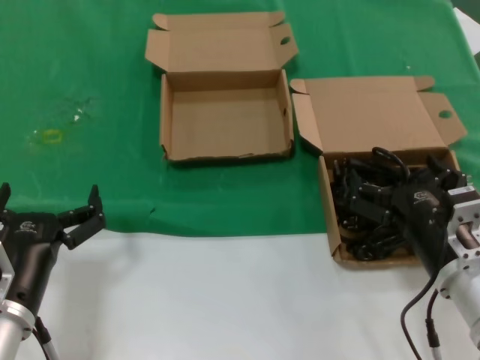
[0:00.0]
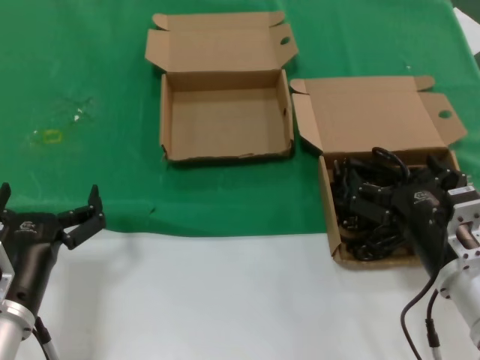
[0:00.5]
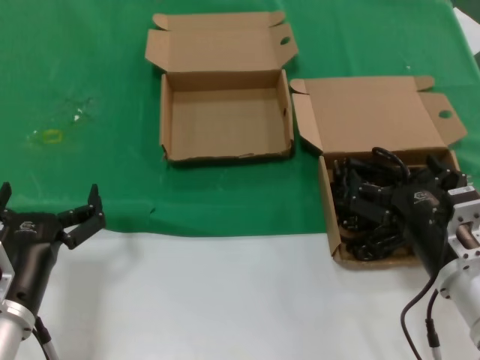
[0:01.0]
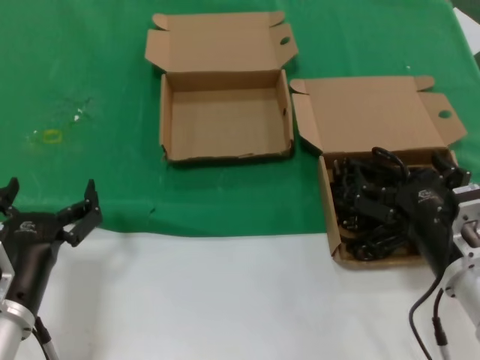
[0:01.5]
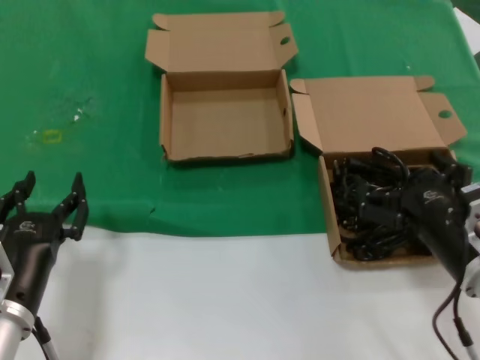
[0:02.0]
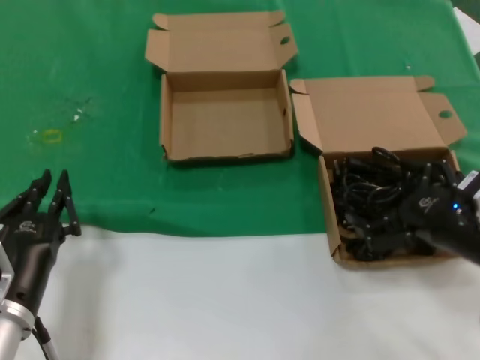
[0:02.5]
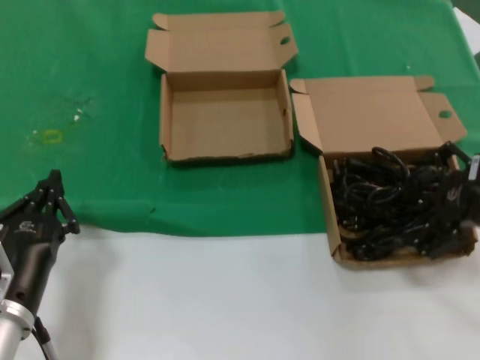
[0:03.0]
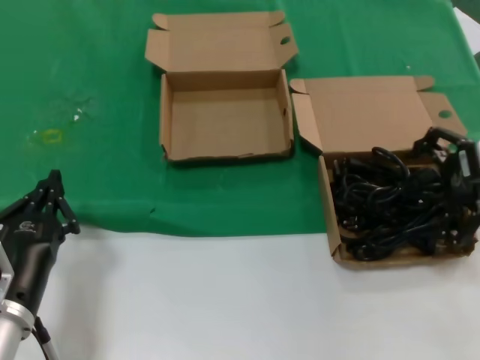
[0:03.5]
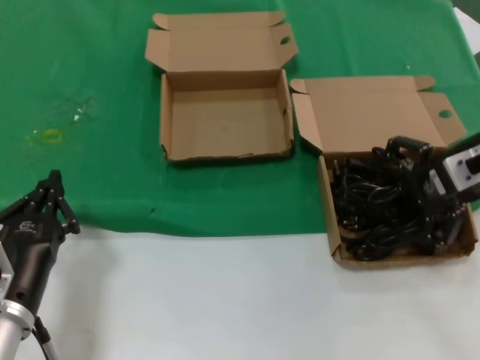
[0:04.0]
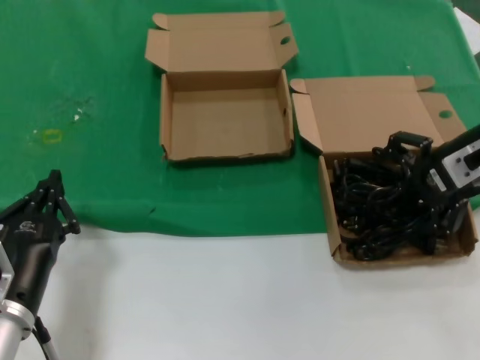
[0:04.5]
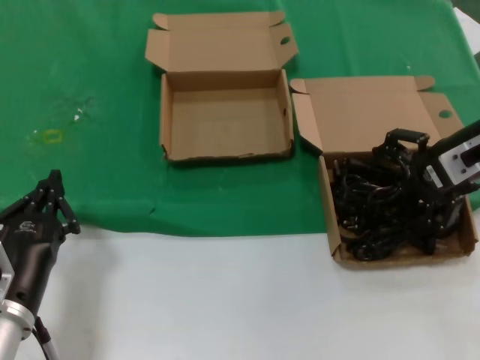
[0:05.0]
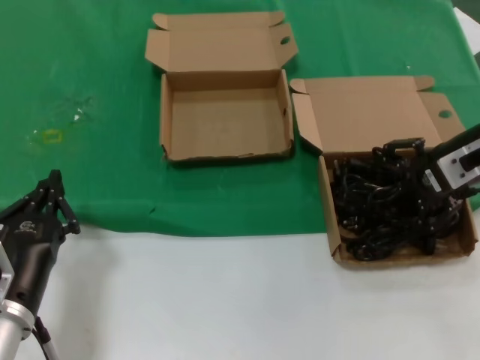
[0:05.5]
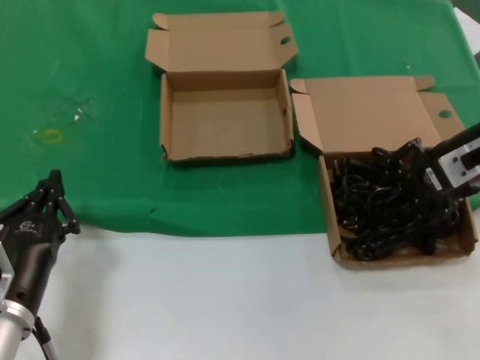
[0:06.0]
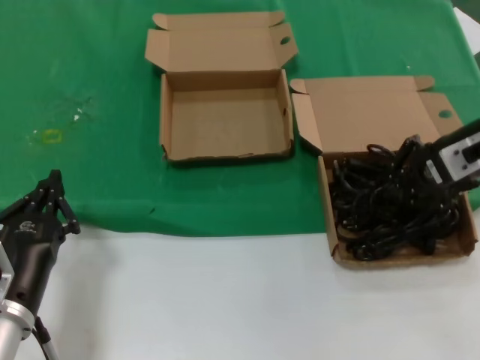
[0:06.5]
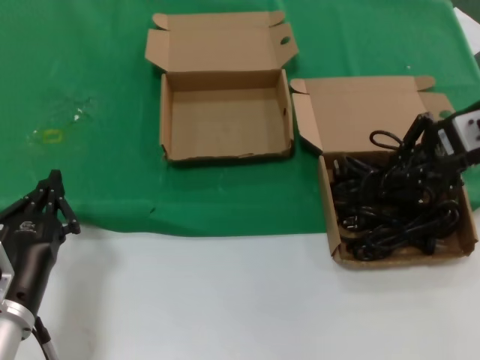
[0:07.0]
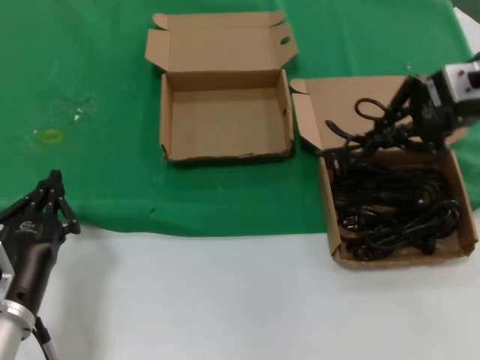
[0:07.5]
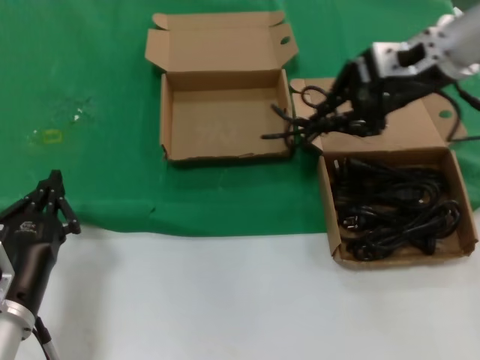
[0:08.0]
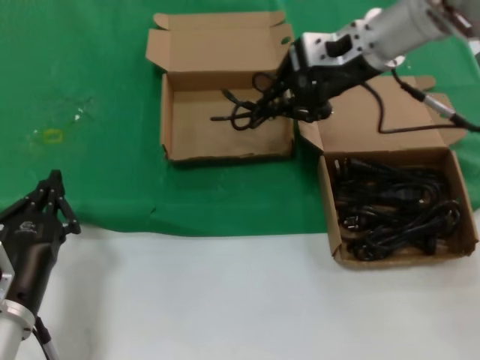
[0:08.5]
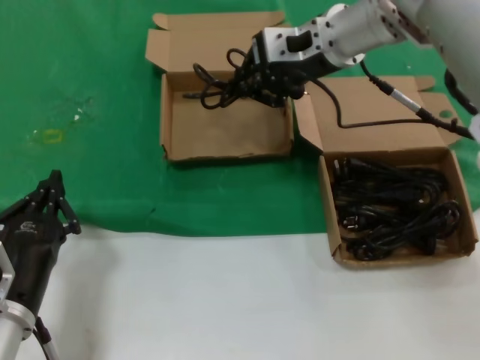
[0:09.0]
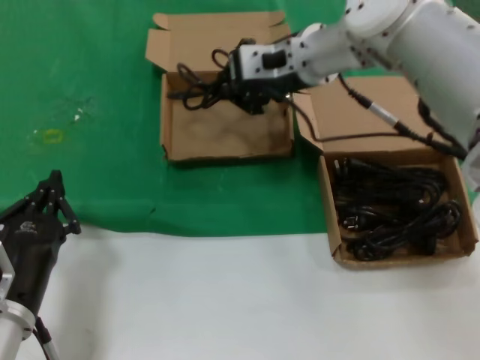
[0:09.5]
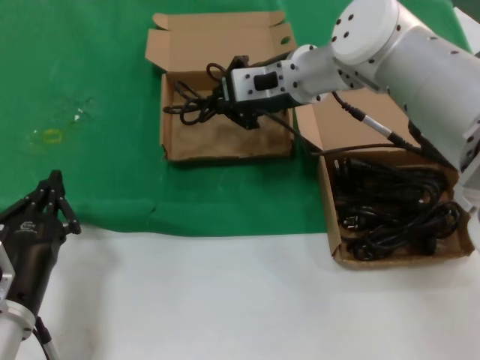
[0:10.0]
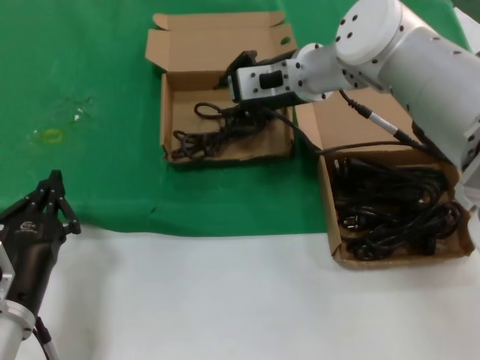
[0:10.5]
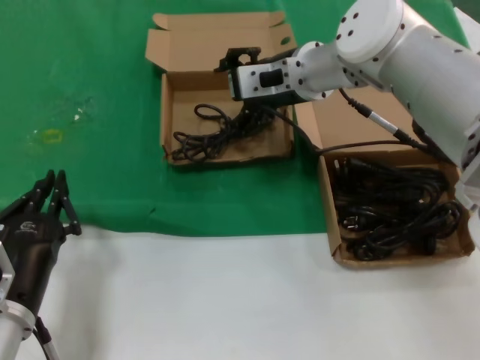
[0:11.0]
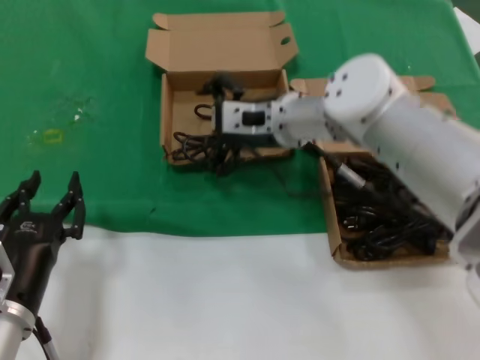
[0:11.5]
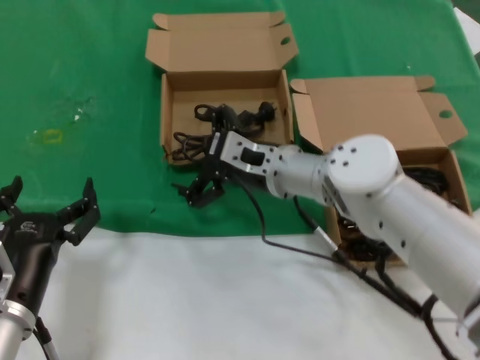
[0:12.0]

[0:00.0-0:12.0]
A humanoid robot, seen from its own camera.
Task of the whole recording: take the parts from the box containing them and put them into an empty box.
Step, 0.0 to 6.0 s: Grasp the data cable.
Step, 6.5 to 10.0 s: Place the data cable in the another box.
0.0 to 2.0 s: There are only small adjustments of the hands.
2.0 to 4.0 s: The right hand moves upward and forward, roughly 20 cm.
4.0 to 6.0 s: The hands move only a little.
6.0 to 8.0 s: The right hand shifts some 15 cm upward and to the left.
8.0 to 10.0 s: The right hand travels to the left and downward by roughly 20 cm.
10.0 to 12.0 s: The right hand shifts about 15 cm downward and backward.

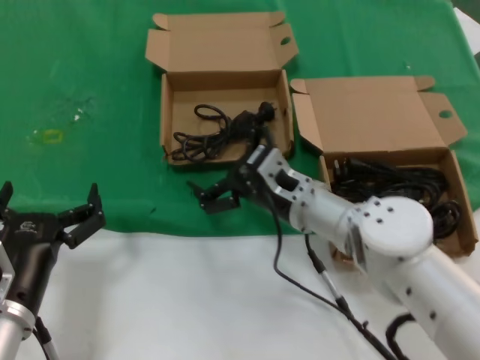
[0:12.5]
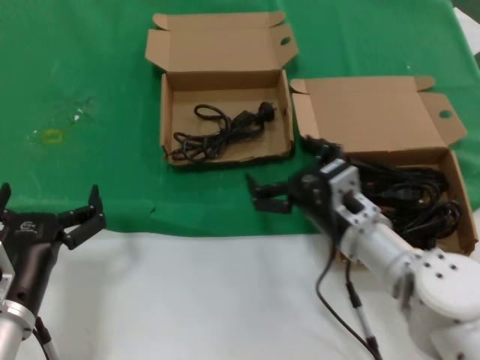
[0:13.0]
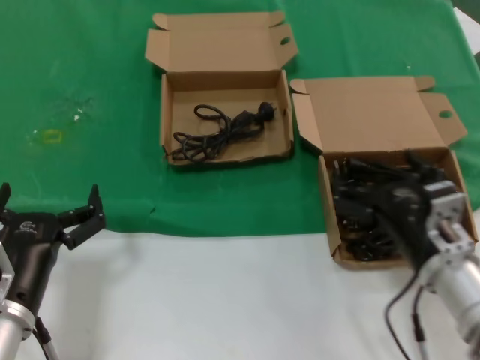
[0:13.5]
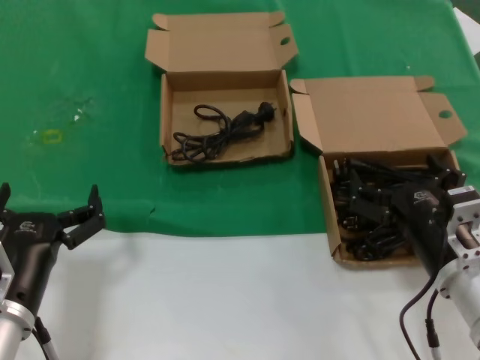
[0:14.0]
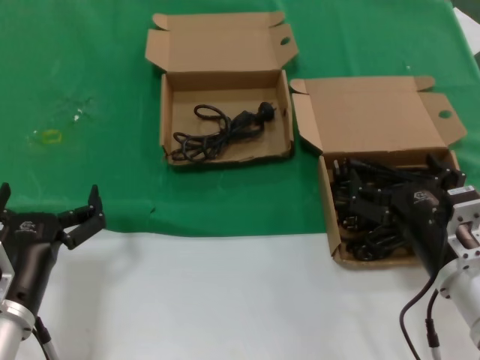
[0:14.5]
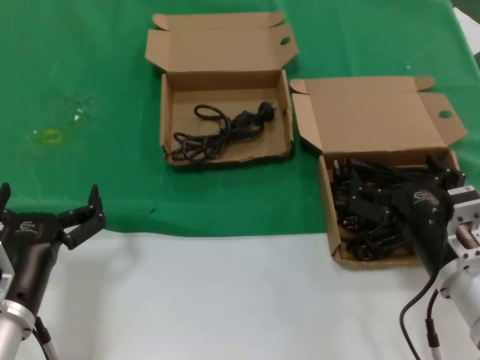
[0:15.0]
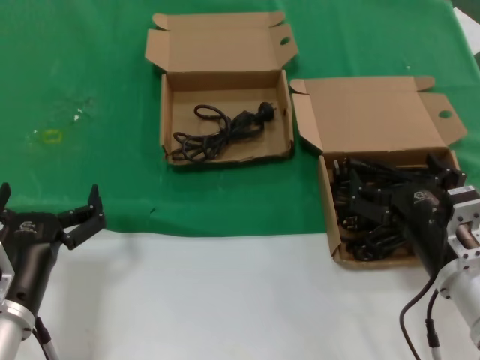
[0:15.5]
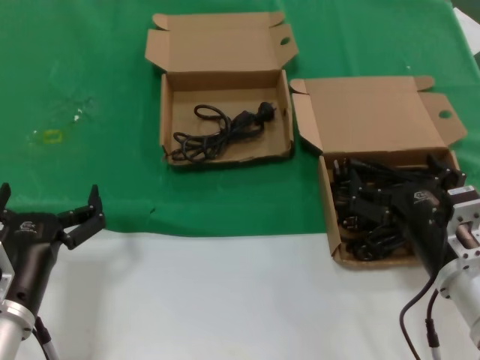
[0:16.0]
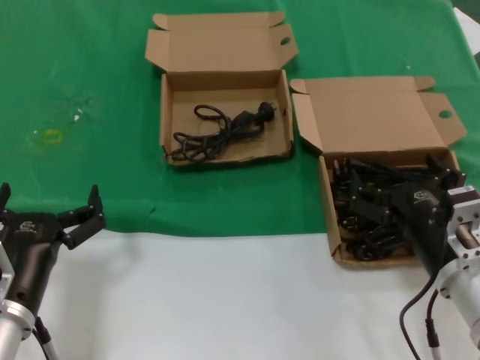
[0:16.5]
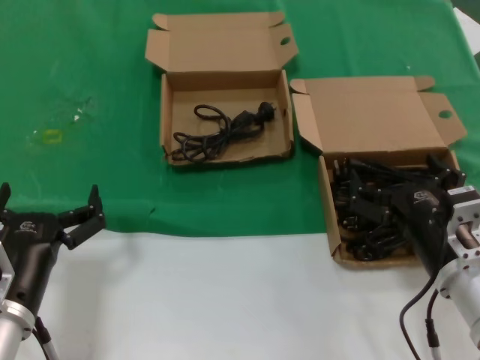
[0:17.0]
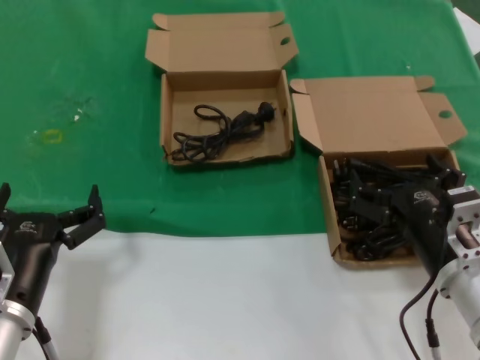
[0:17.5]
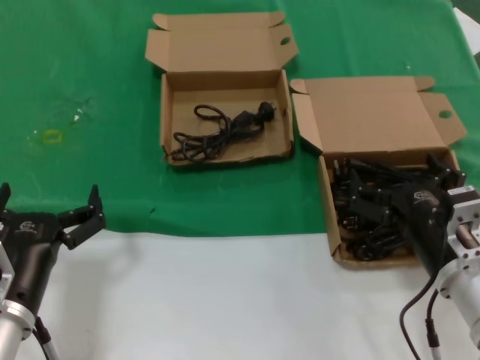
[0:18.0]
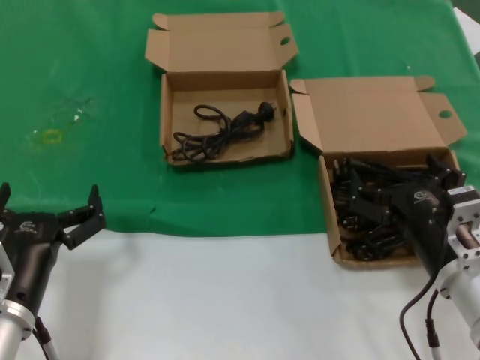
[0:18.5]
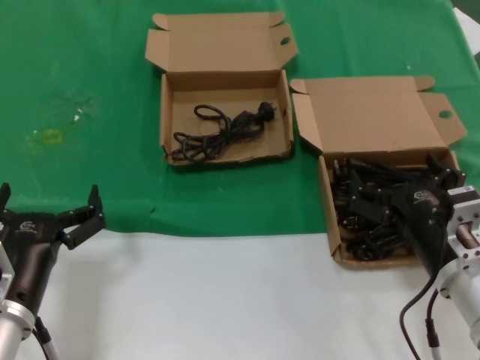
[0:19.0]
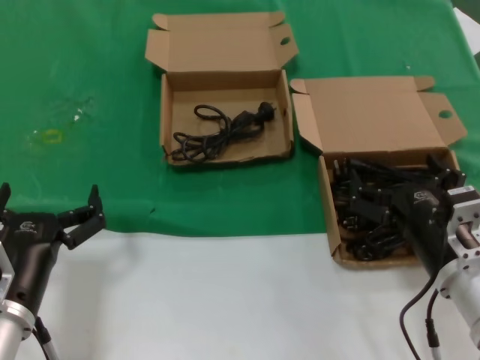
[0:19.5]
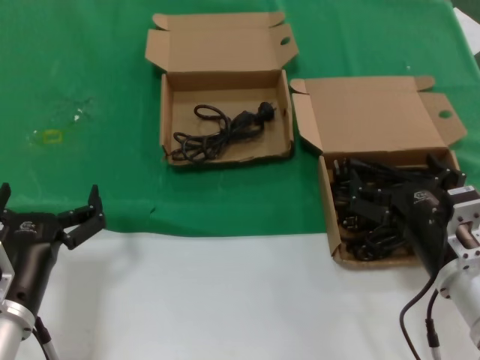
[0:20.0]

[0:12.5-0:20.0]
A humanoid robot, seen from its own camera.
Task of the whole recording: take the parts from the box containing them and put them into an empty box.
12.5 to 14.5 s: The right hand travels backward and to the right by roughly 20 cm.
14.5 to 20.0 s: Both hands stay about where they are.

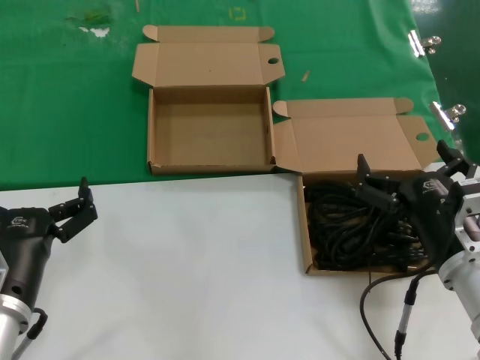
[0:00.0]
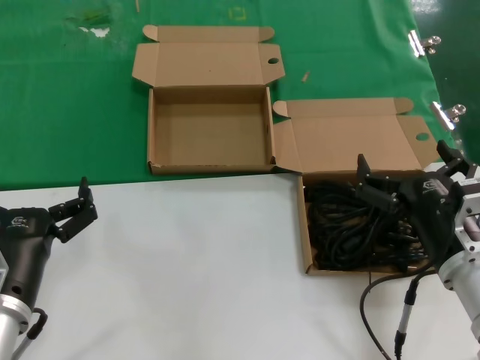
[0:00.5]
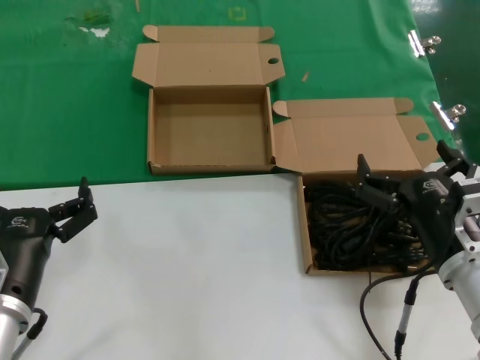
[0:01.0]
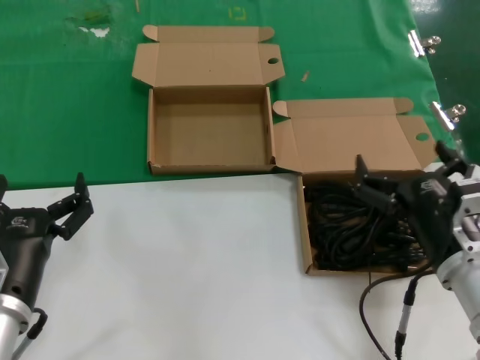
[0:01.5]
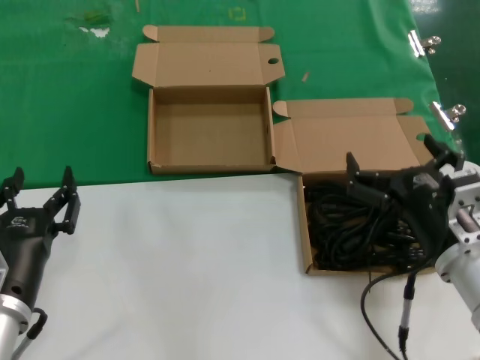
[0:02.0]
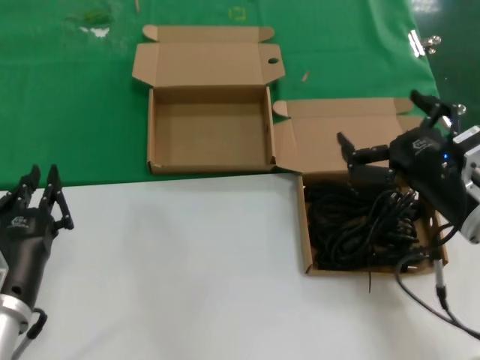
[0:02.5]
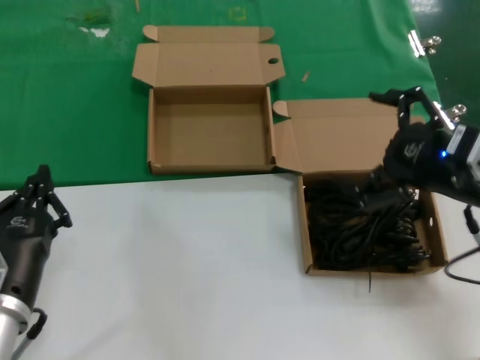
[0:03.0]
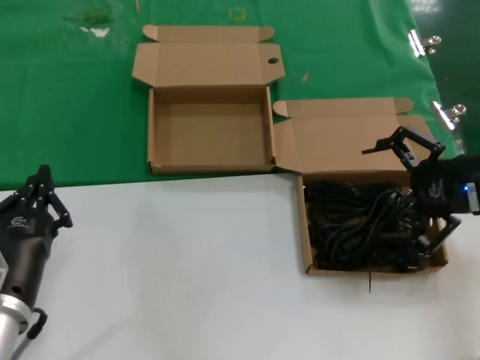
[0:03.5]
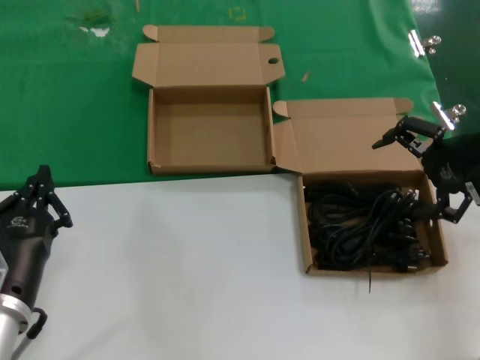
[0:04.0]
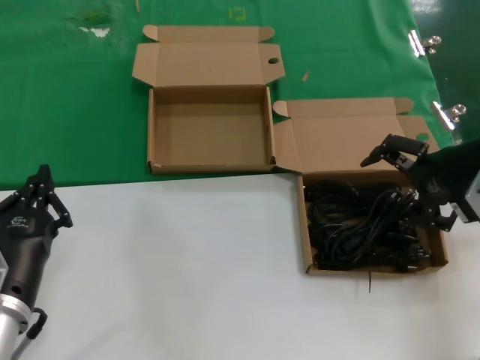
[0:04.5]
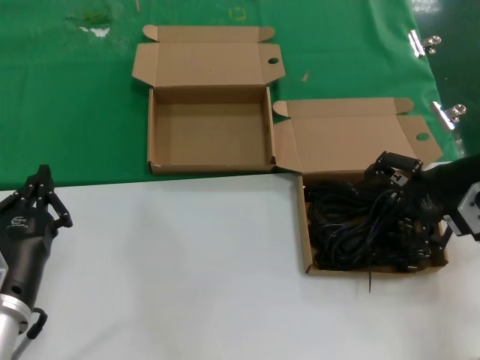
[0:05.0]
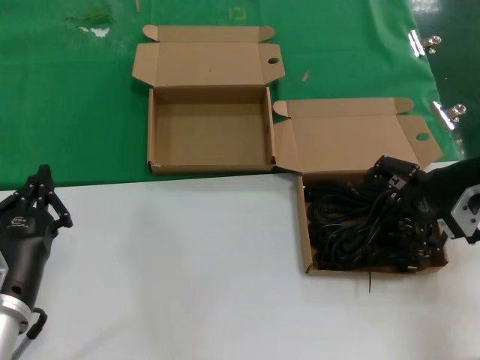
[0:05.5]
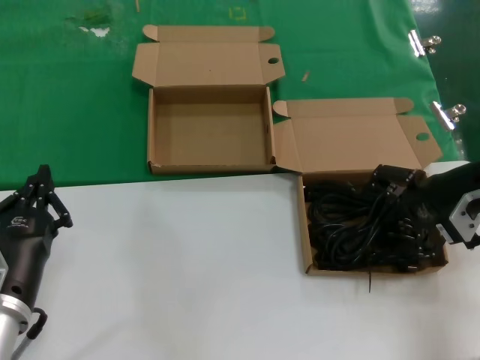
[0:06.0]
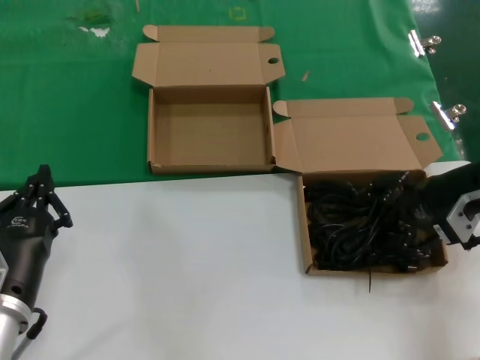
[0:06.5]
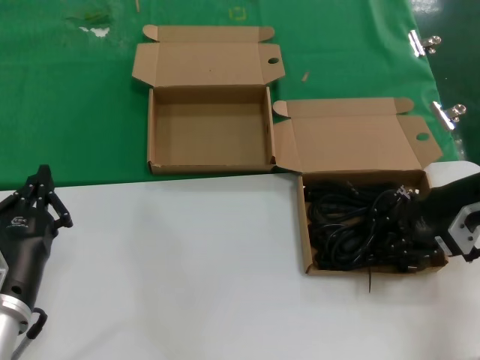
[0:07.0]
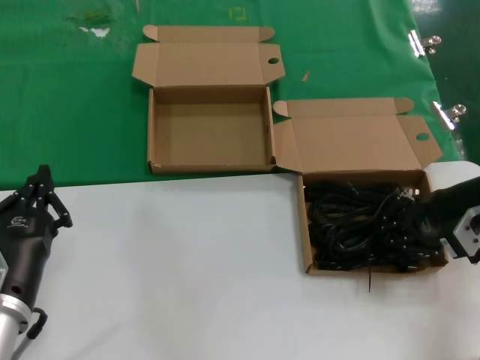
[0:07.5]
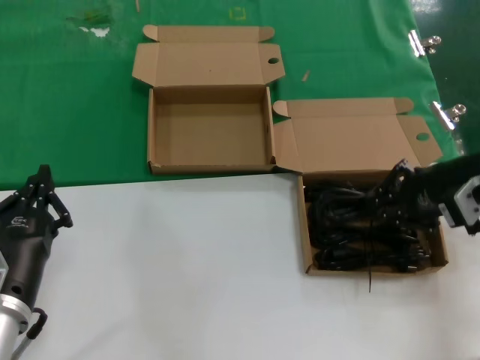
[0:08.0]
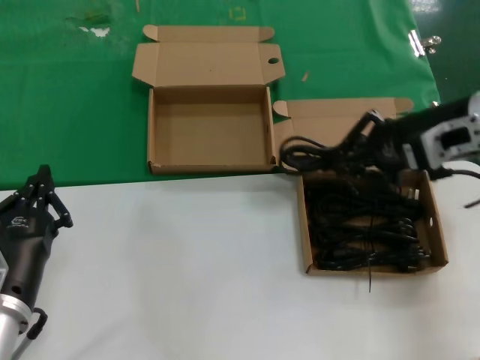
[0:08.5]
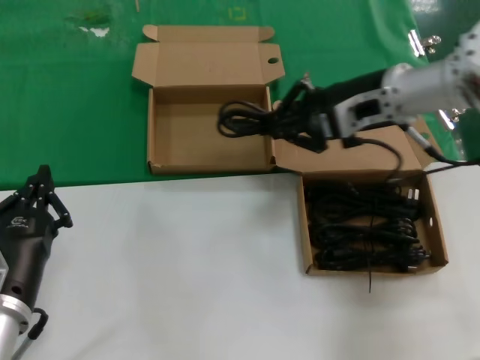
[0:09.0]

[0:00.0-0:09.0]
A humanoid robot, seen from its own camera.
Task of the whole recording: take the parts from the box containing them and put them into an empty box.
Step, 0.0 to 7.5 s: Grasp the data cable.
0.0 to 2.0 s: The two hands keep their place.
2.0 to 4.5 s: The right hand is displaced upward, forward and to the right by approximately 25 cm.
4.5 to 7.0 s: The right hand goes approximately 5 cm downward.
7.0 to 9.0 s: The right hand is displaced to the left, upward and forward by some 15 cm.
